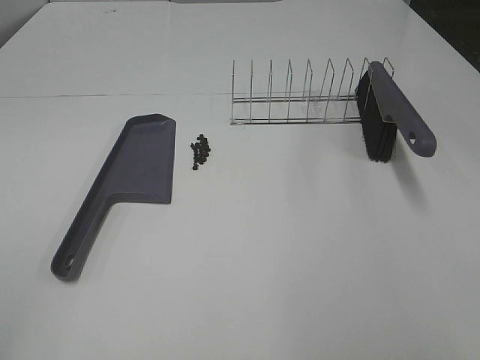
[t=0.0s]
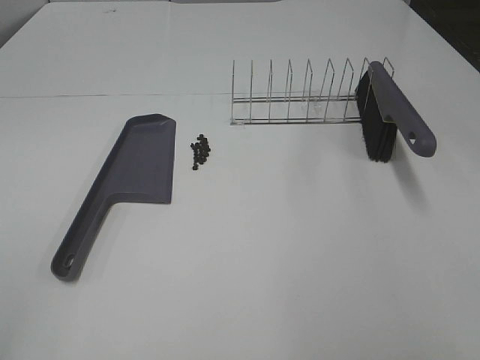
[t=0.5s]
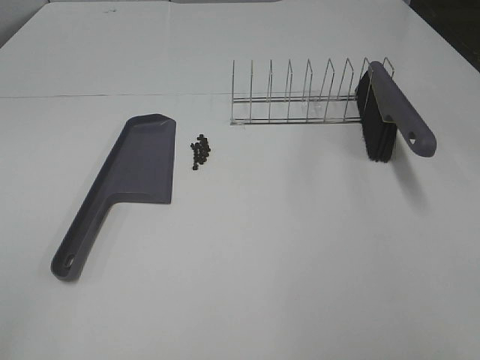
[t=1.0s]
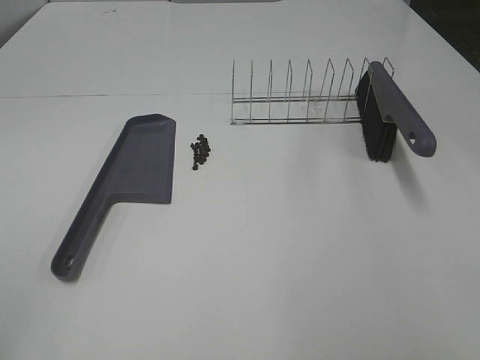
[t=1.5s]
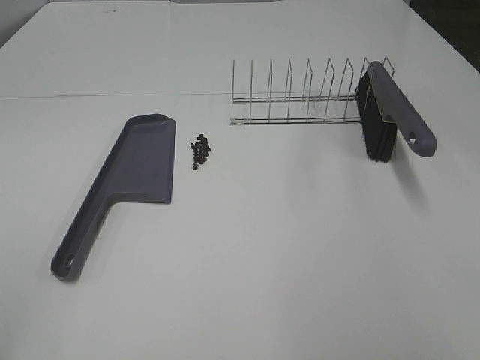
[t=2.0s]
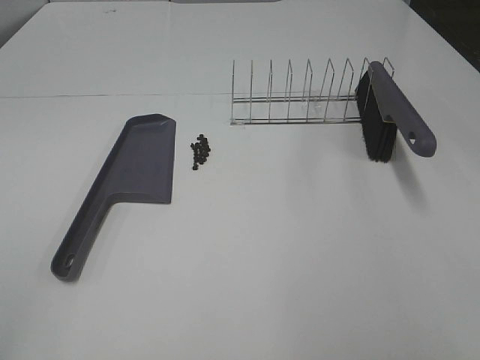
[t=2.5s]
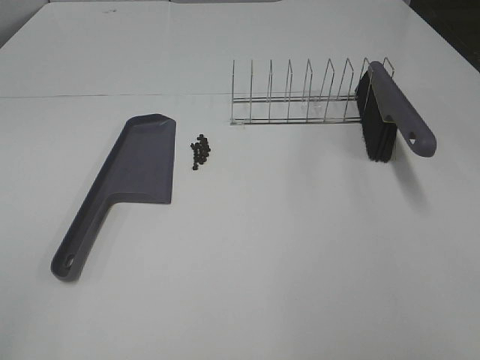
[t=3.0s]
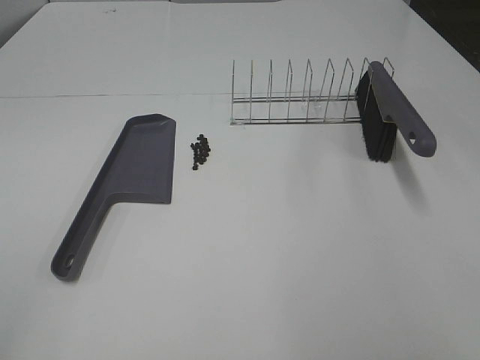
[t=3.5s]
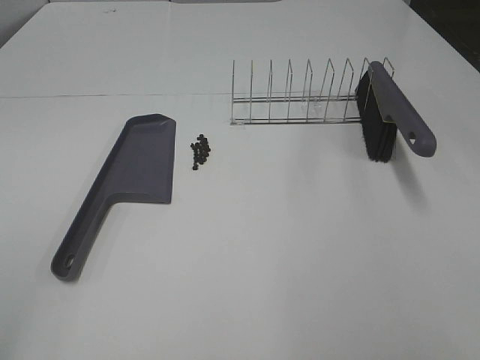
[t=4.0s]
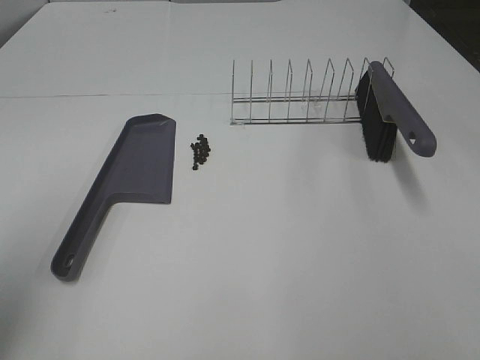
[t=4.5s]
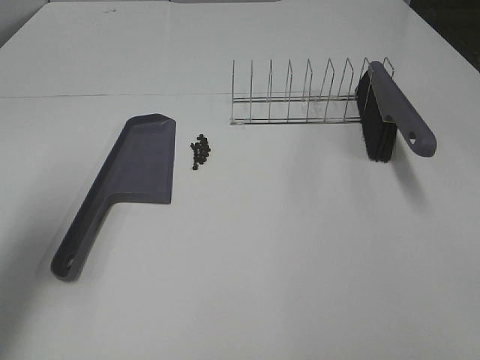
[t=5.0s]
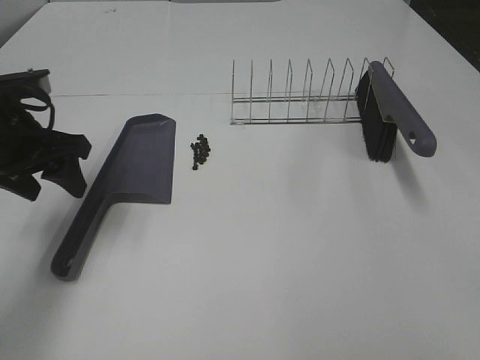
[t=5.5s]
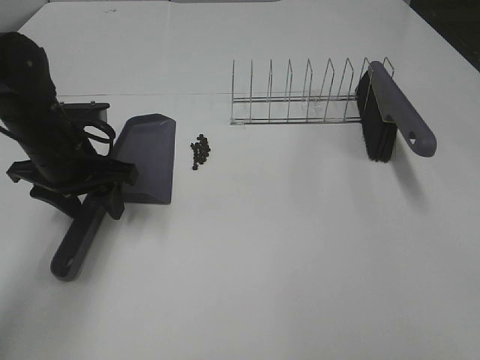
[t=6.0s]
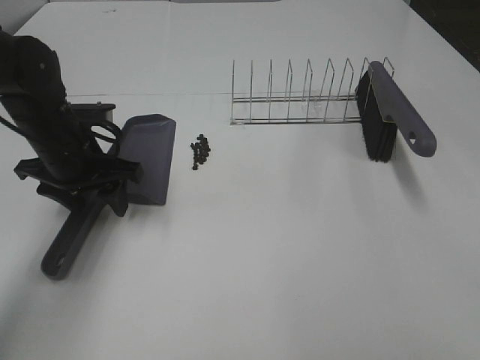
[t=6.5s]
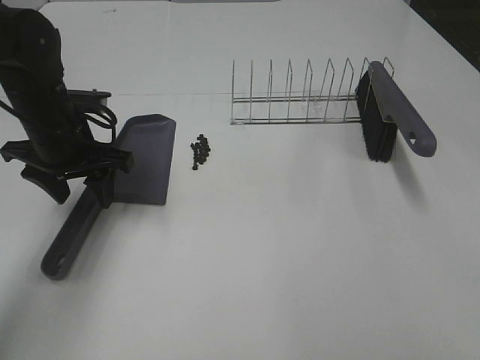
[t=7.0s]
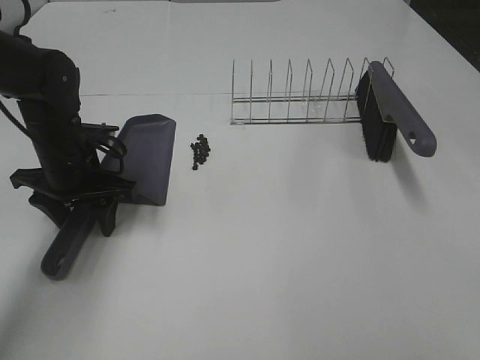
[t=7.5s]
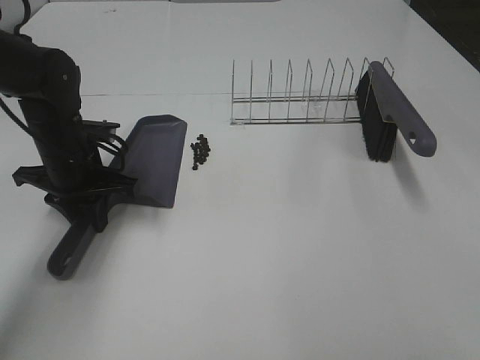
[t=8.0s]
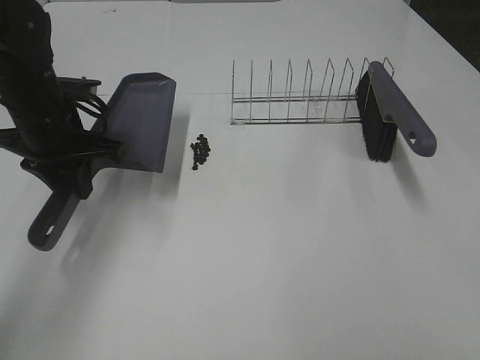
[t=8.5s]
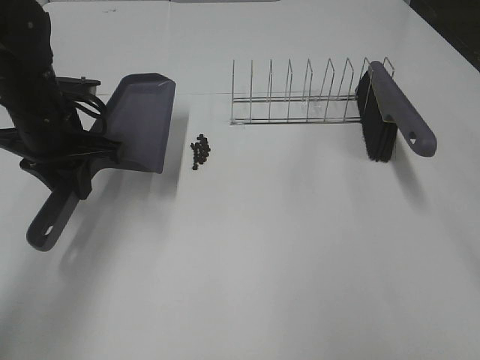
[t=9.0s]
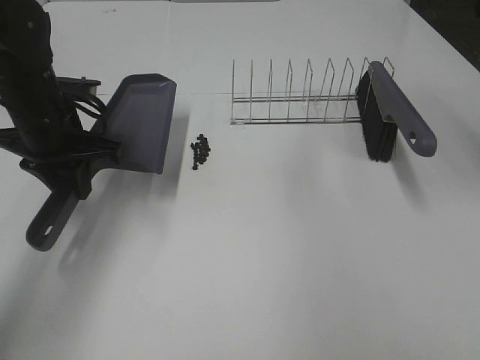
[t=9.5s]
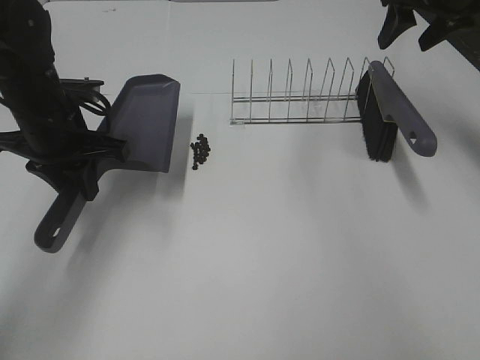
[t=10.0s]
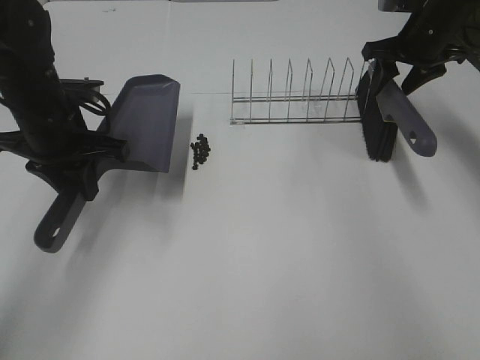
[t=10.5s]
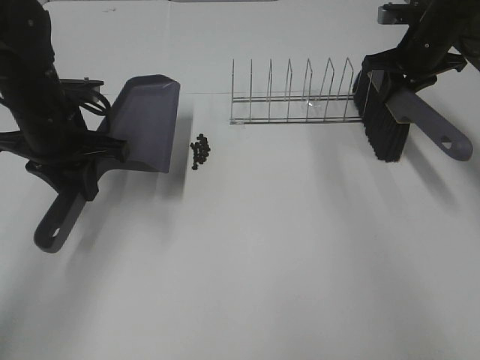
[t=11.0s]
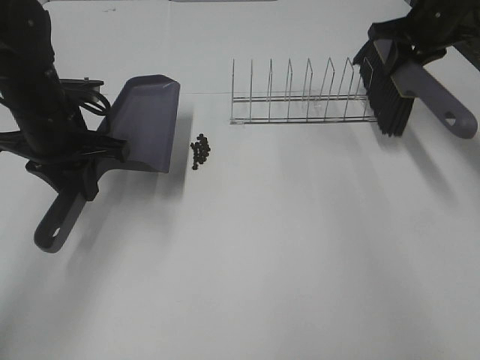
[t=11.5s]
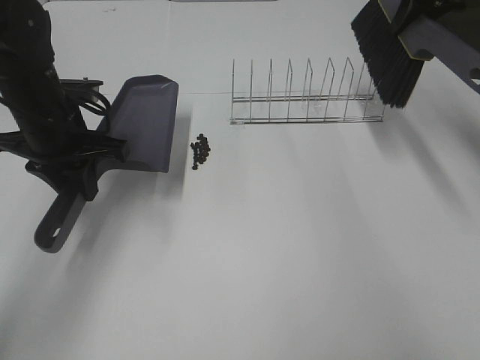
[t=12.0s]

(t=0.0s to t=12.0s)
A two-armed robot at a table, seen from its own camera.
Task of the whole recording: Sweep Coffee Bean.
Step, t=0.0s - t=7.5s: Left hand: grab the dustpan.
Step, t=8.5s - t=11.0s: Right hand:grab the broom.
t=0.0s - t=2.0s: Both grippers stay about where they are.
t=4.0s - t=6.0s: The left gripper is displaced forward and downward by roughly 35 cm.
t=6.0s - t=8.0s: The left gripper closes.
t=8.0s - t=10.0s: The left gripper is displaced upward by some 5 cm, while the right gripper shifts about 50 cm forward.
t=10.0s - t=12.0s: The right gripper goes downward and returns, about 10 cm each way, and closes.

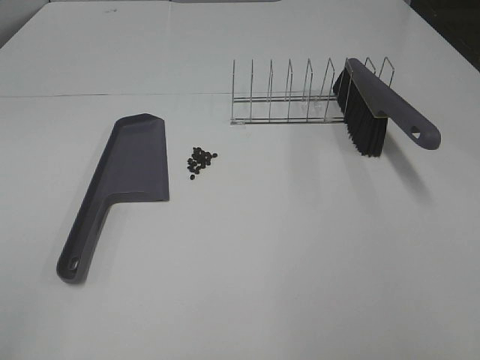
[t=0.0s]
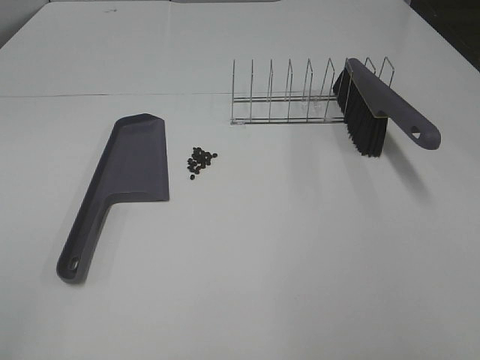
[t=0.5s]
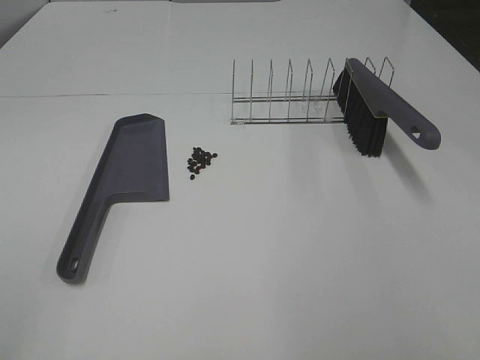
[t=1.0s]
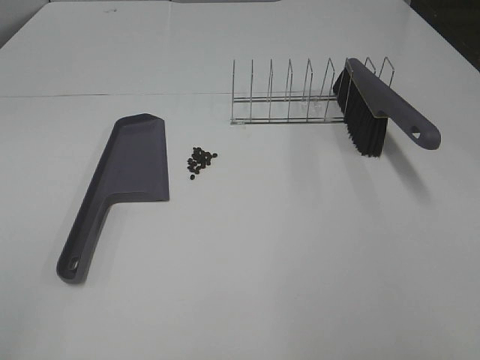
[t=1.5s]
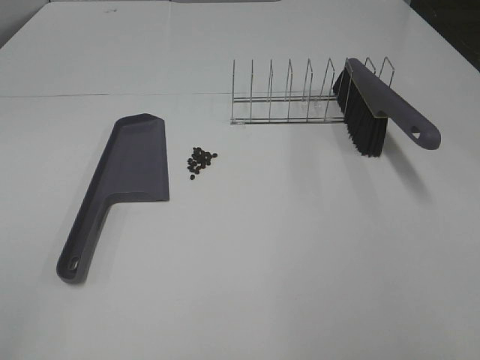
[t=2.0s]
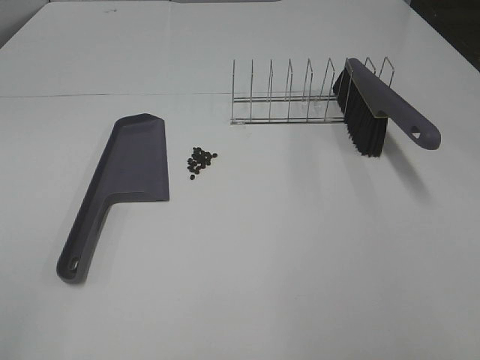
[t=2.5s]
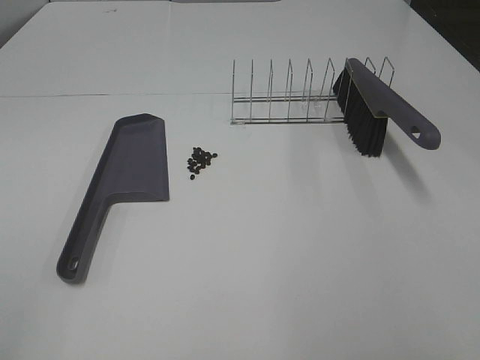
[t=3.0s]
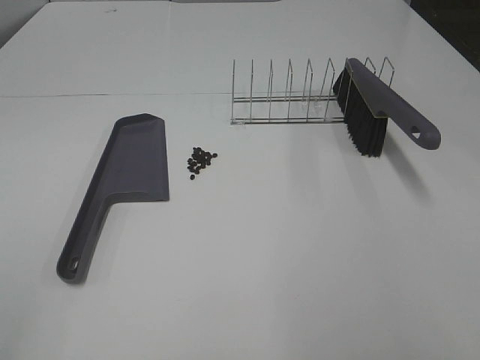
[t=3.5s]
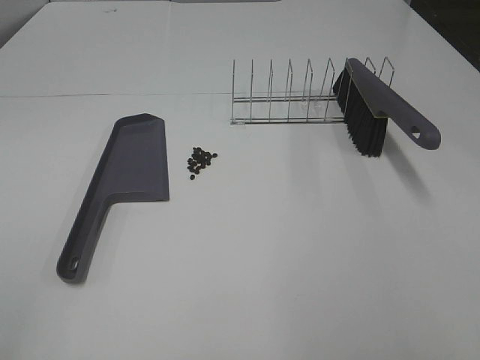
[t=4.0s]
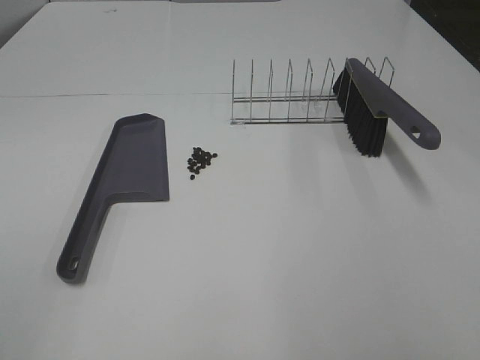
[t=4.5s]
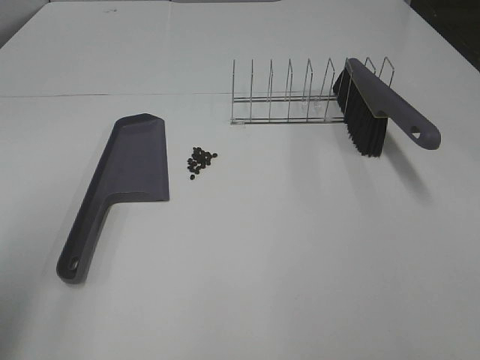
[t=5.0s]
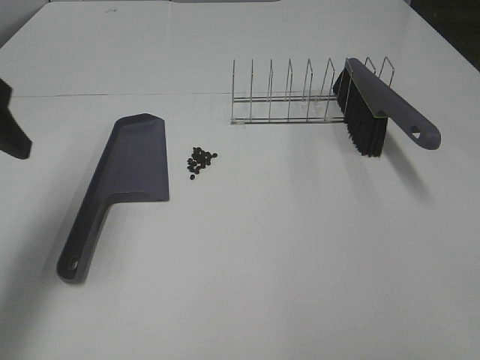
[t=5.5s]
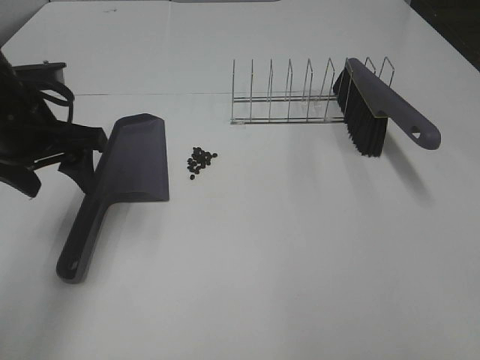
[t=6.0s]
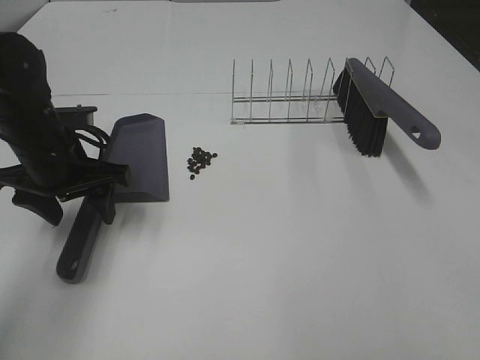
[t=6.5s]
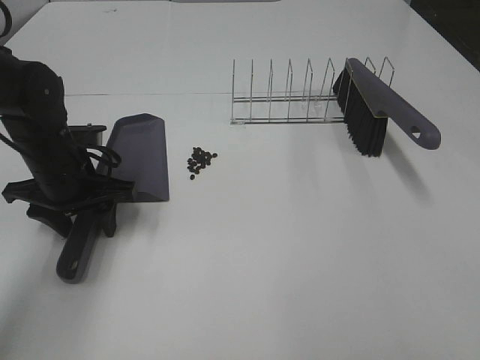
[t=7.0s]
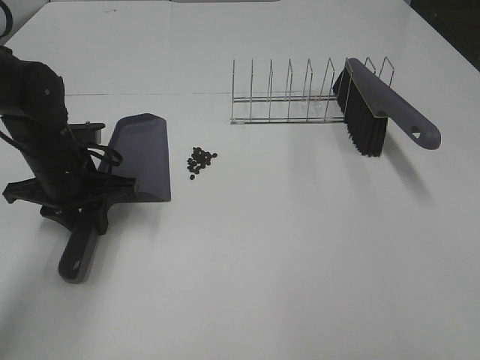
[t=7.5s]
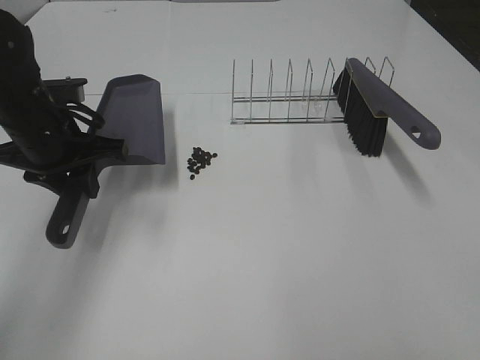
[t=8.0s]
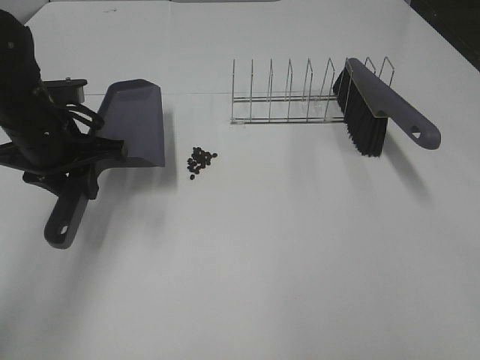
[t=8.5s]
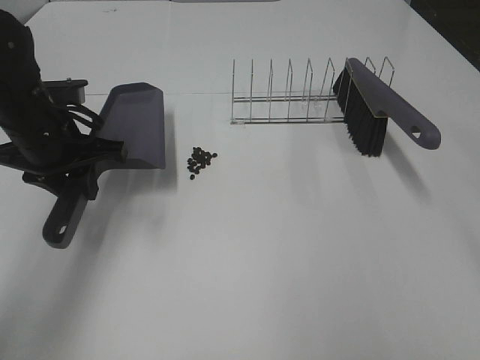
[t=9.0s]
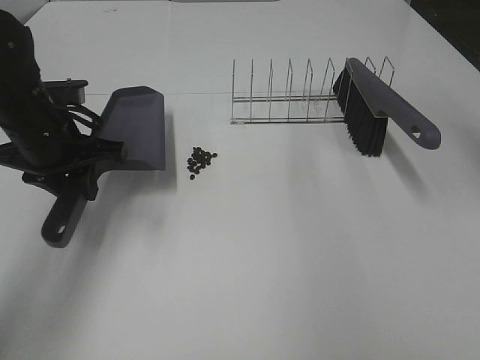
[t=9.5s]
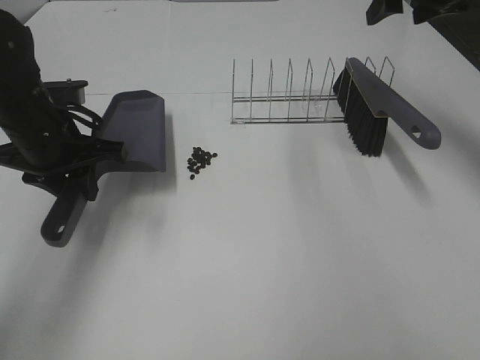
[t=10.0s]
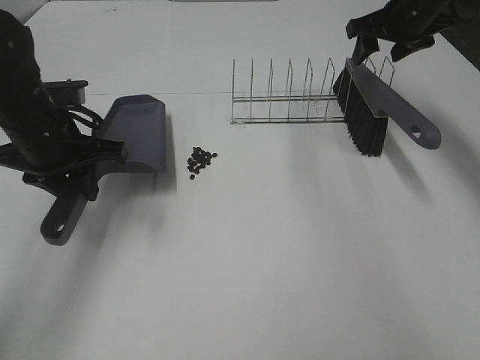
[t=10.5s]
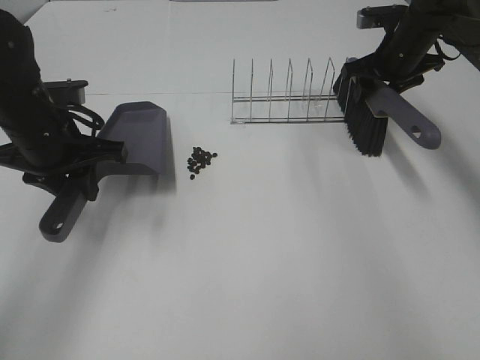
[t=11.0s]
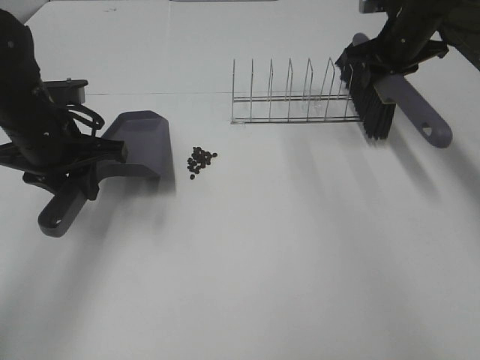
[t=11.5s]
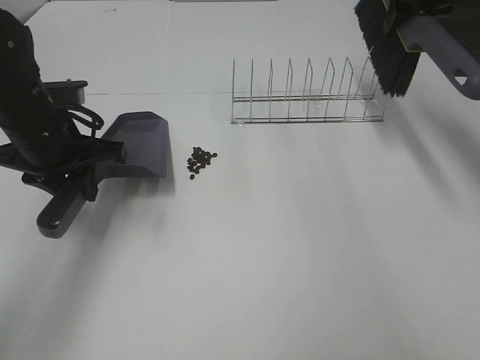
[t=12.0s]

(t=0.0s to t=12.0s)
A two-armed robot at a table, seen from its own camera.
Task of the whole recording: Sweep Coffee Bean.
Step, t=0.0s - t=7.0s: Left hand: grab the dustpan.
t=0.0s - t=4.0s: Both grippers stay put.
t=4.0s - t=6.0s: The left gripper is displaced forward by about 35 cm.
t=6.0s - t=8.0s: The left gripper closes up.
t=8.0s - t=10.0s: The right gripper shifts approximately 50 cm forward.
t=10.0s - t=12.0s: The right gripper travels downward and back again, approximately 15 cm each way, and closes its fingers.

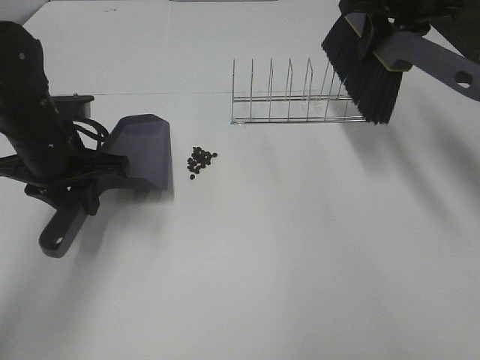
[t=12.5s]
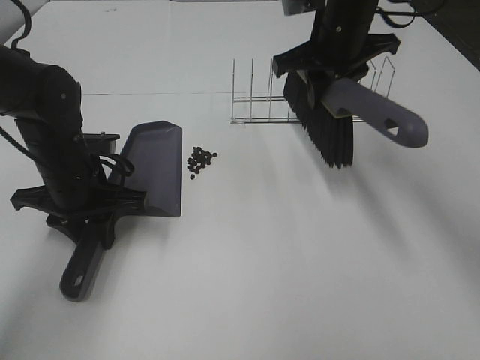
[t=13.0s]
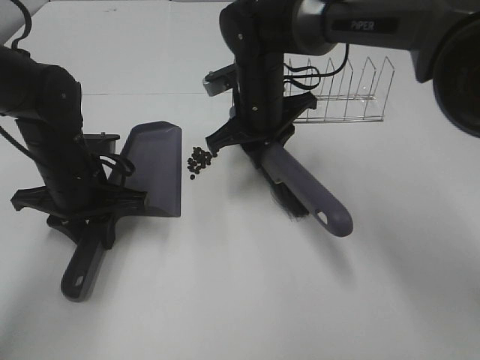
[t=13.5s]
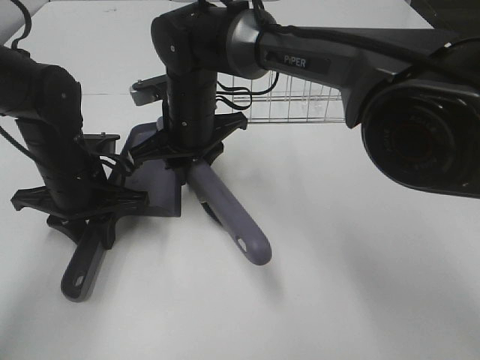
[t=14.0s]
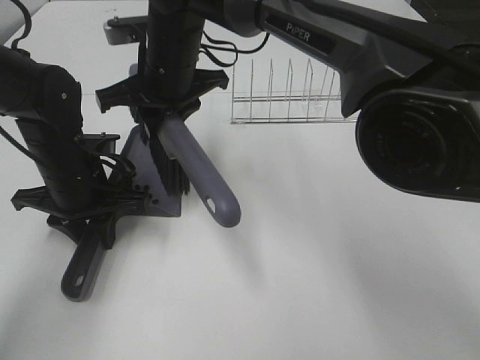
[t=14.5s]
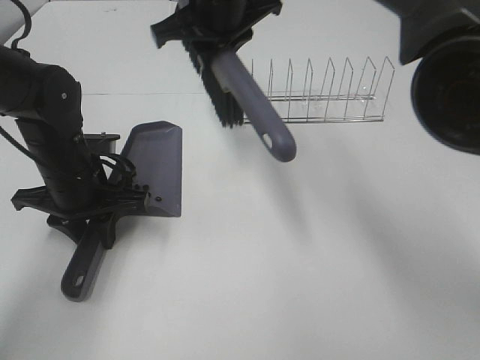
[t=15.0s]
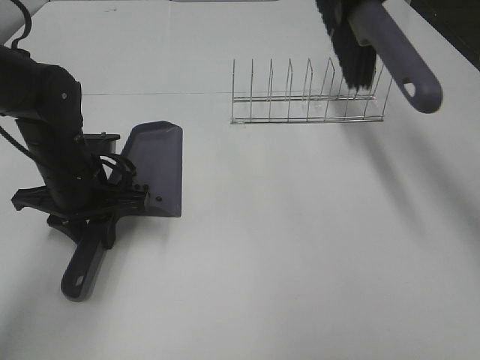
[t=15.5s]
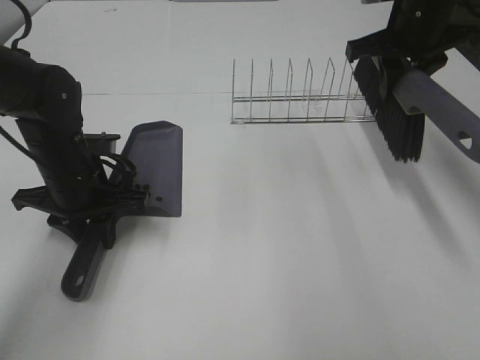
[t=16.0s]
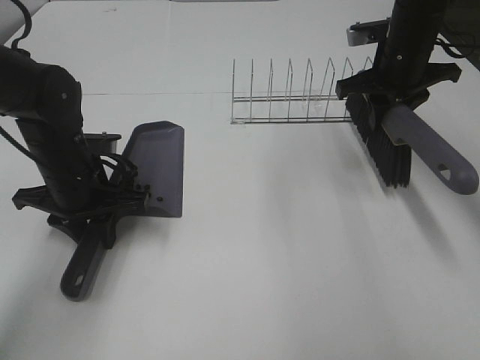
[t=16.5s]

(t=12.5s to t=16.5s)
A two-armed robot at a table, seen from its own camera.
Task of the whole recording: Sweep Coffee Bean.
Step, t=12.5s - t=14.5s: Right hand:sweep the coffee beans into the dustpan.
t=12.5s - t=14.5s: The right gripper moves to the left, about 30 cm.
t=14.5s - t=16.5s: The right gripper is displaced to the right by about 30 cm.
